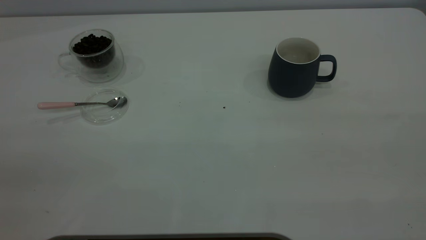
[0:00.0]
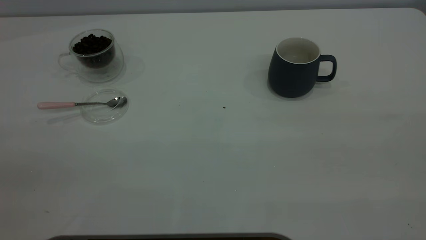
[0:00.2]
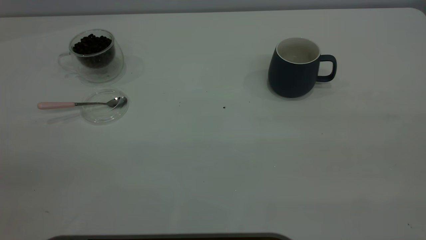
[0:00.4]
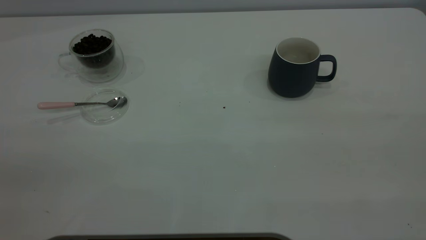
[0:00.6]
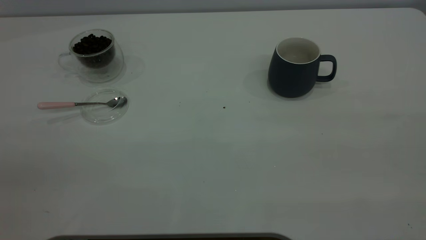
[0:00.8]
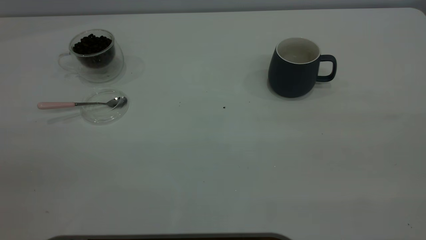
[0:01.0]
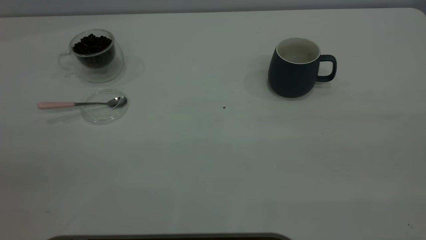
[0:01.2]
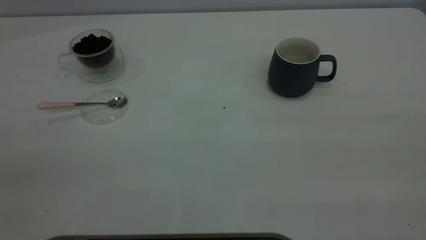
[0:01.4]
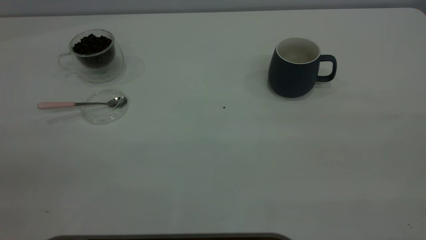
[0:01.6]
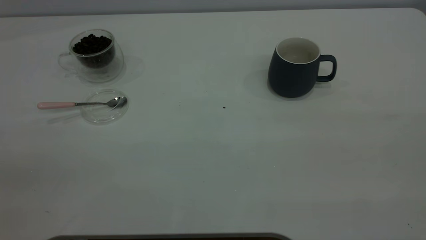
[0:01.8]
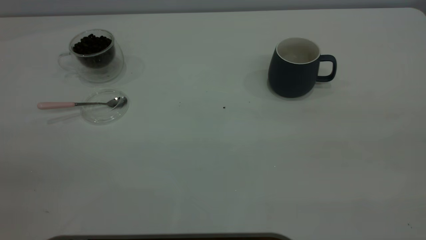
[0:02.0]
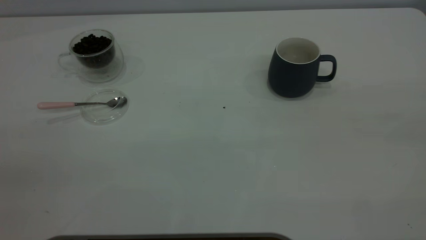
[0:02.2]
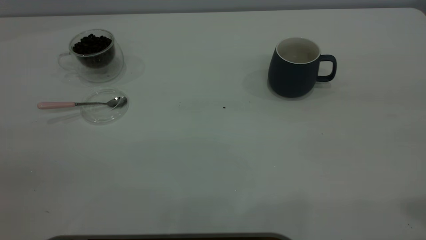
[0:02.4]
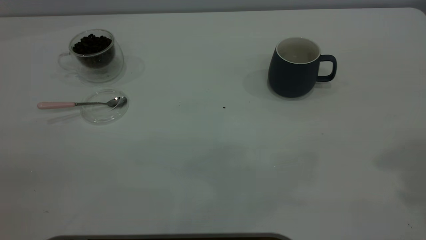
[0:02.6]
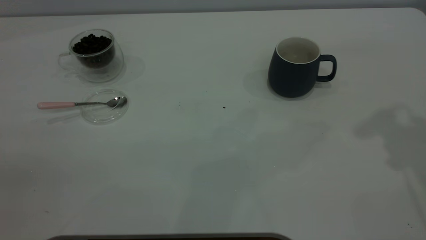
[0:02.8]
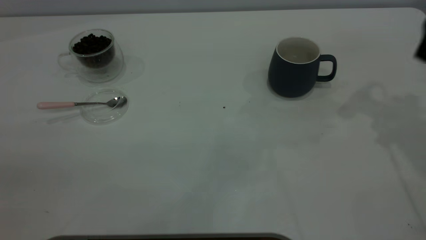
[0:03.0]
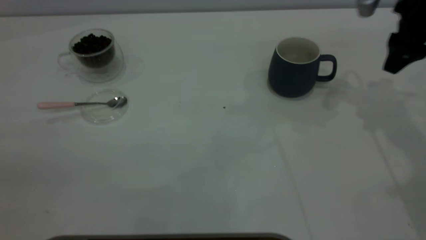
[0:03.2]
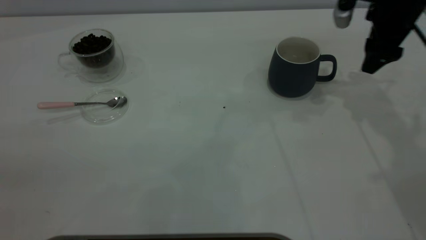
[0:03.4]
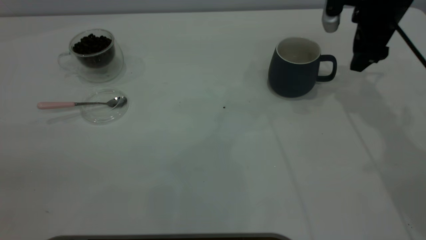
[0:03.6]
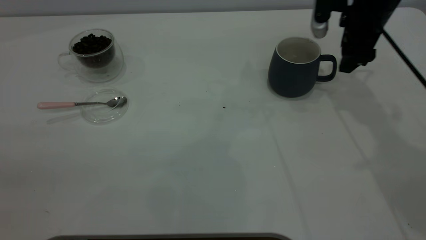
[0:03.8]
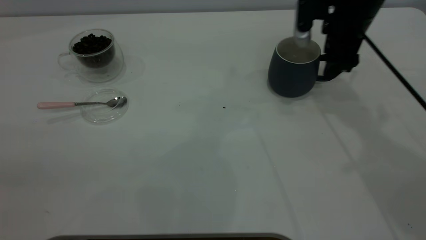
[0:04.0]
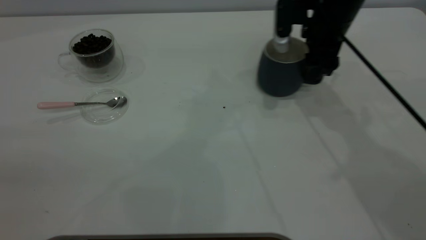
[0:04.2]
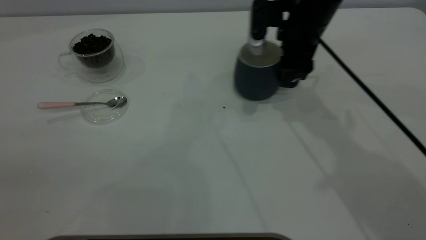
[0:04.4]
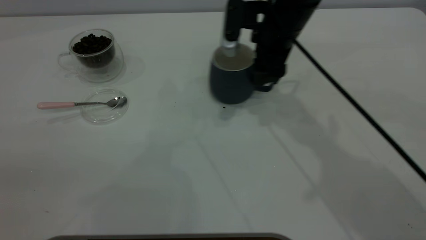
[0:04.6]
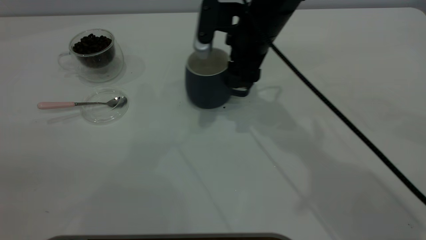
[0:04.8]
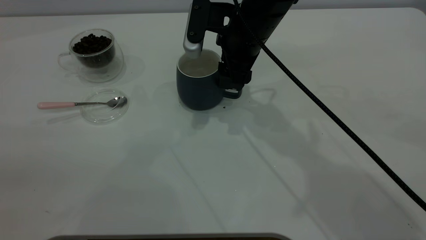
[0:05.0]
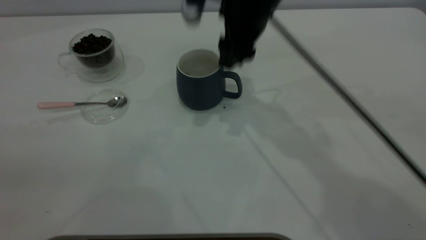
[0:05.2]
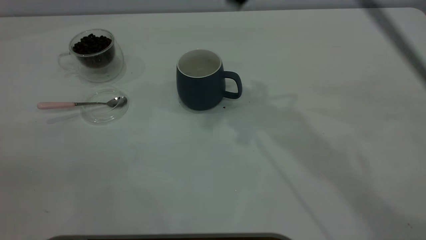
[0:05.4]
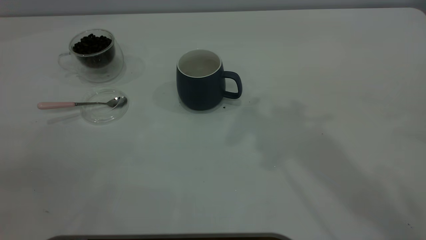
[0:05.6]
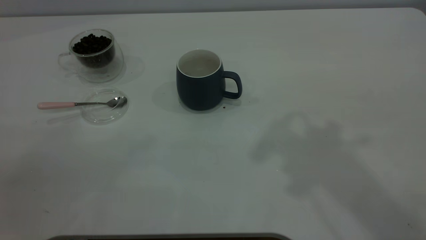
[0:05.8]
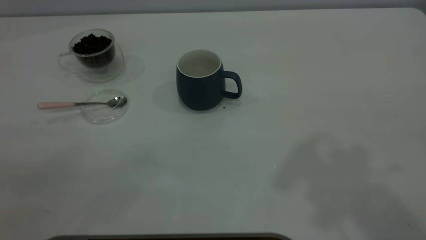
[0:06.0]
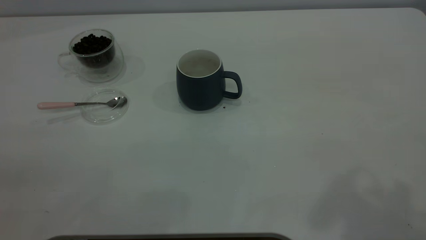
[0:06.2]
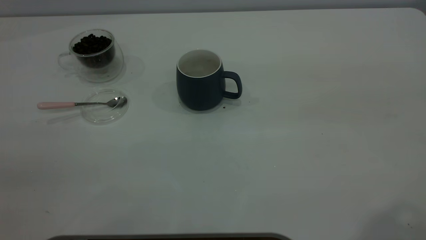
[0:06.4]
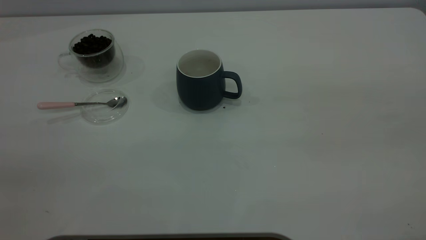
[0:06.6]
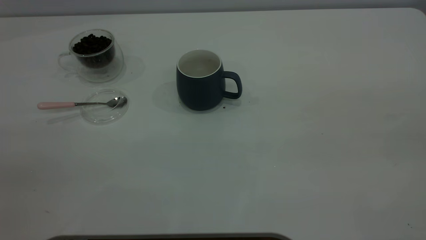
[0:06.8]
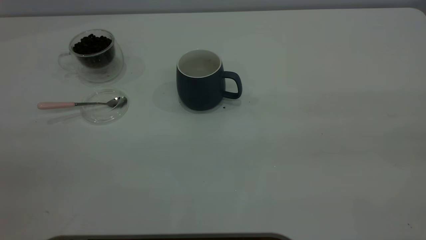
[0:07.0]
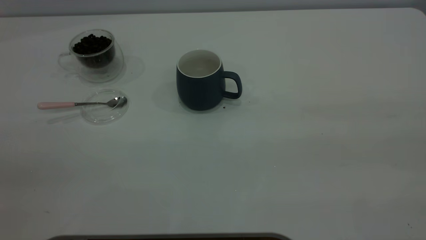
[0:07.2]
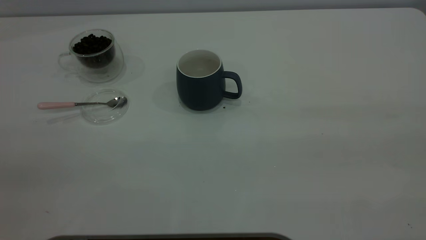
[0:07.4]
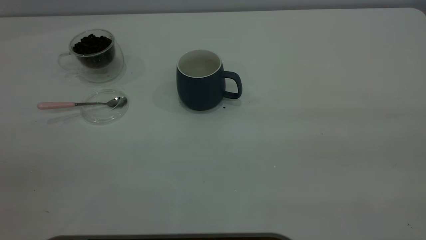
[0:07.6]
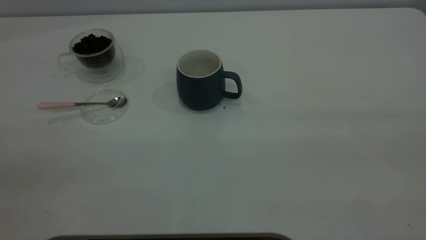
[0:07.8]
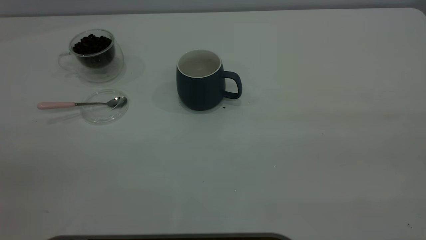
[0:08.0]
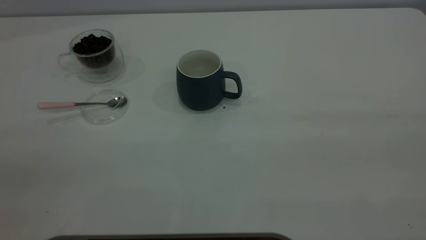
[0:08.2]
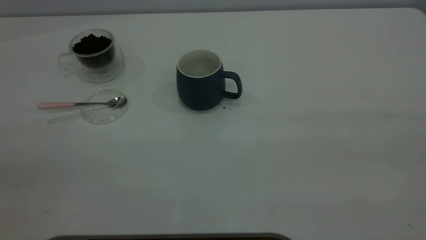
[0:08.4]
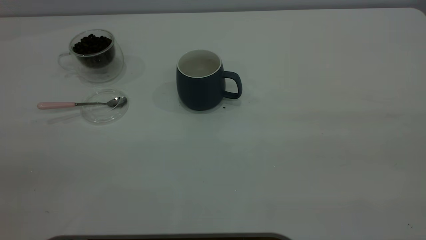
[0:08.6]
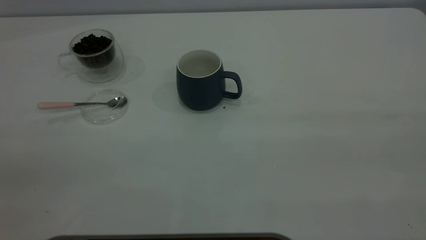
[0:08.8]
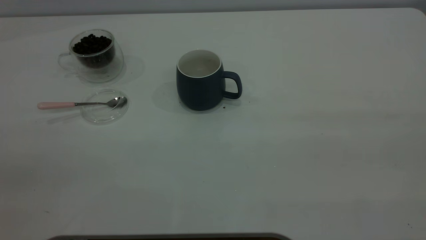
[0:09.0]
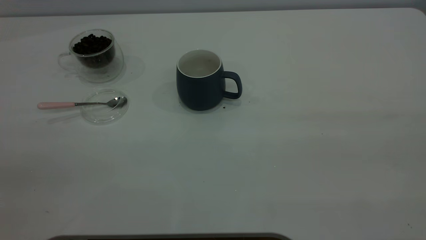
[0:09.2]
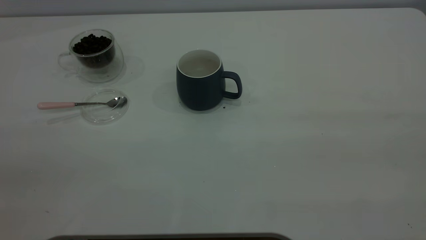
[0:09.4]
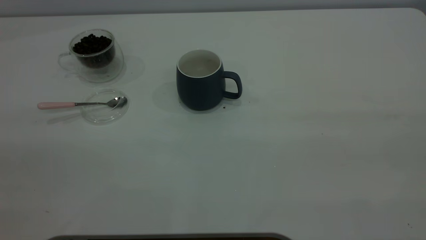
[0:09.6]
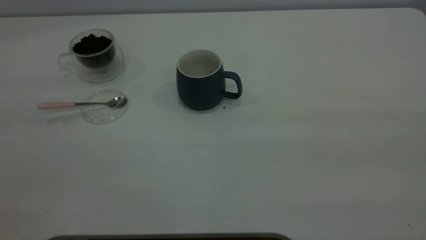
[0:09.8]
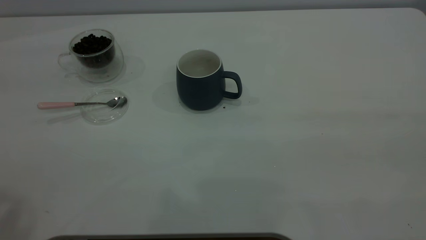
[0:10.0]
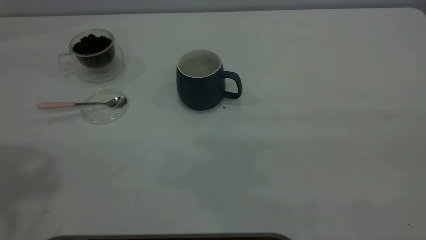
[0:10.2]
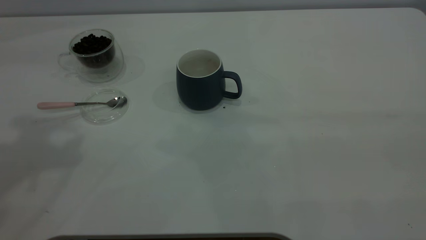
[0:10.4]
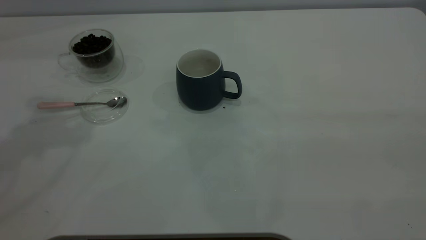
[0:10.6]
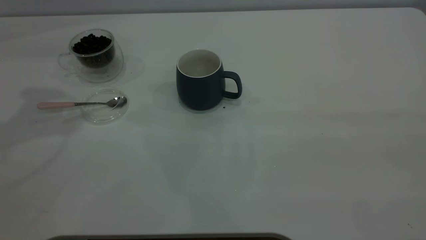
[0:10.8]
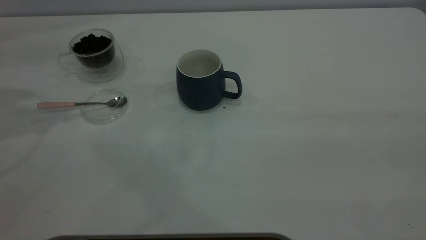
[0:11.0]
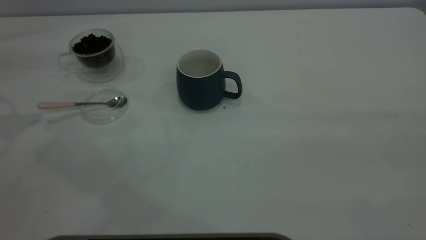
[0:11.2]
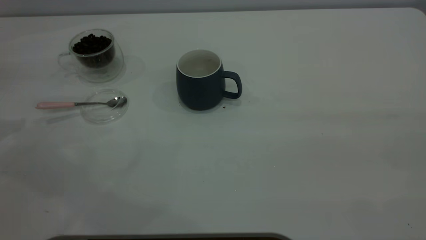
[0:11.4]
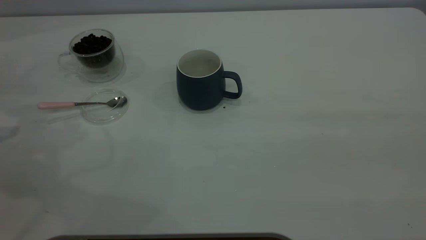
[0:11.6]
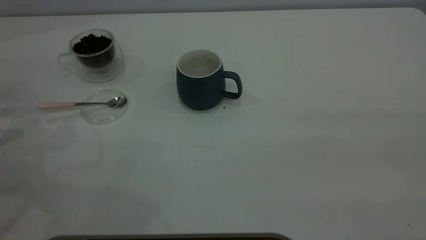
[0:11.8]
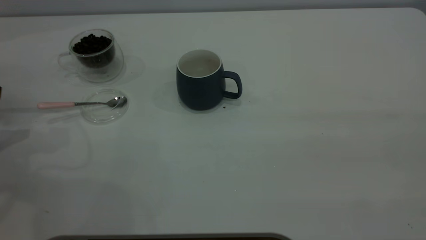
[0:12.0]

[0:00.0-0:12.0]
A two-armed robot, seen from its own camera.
Task of the whole recording: the right gripper place the grey cup in the center of the table, the left gripper take the pink spoon from the cup lid and scoop out the coffee beans from the coffee cup and put them into the grey cup, the left gripper put the spoon back into the cup lid.
Step, 0:00.0 to 0:05.2: Move the cup to the center of view.
0:00.0 to 0:01.6: Both grippers stay put.
0:03.0 to 0:04.4: The right gripper shifts roughly 20 cm to the left and downward.
0:04.4 to 0:06.0: The right gripper travels upward and backward by approximately 40 cm.
0:07.6 to 0:09.0: Neither gripper changes place.

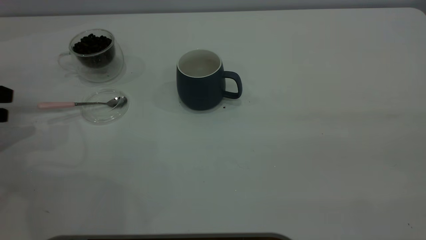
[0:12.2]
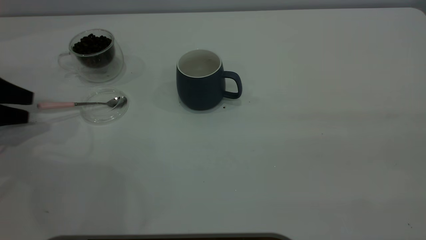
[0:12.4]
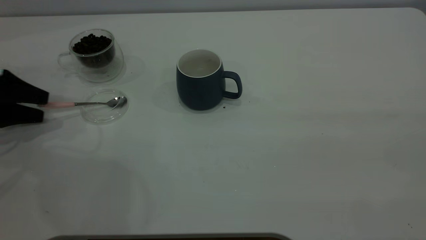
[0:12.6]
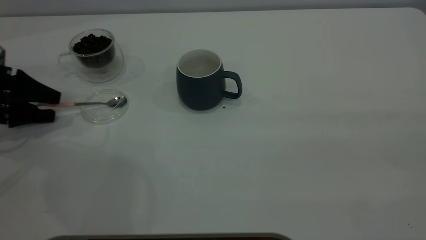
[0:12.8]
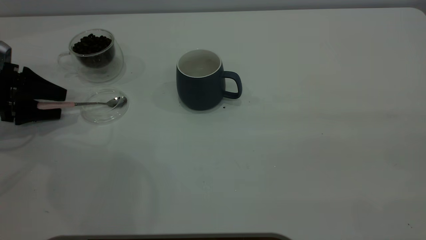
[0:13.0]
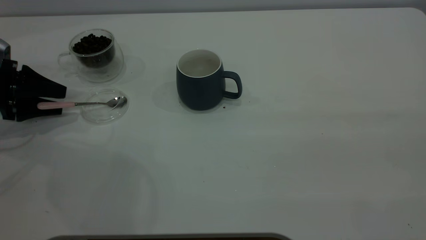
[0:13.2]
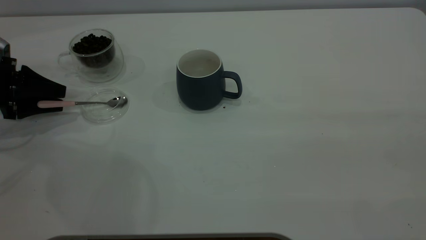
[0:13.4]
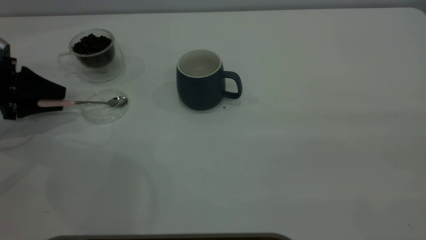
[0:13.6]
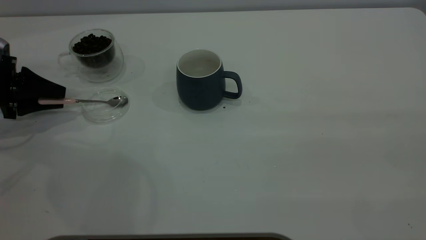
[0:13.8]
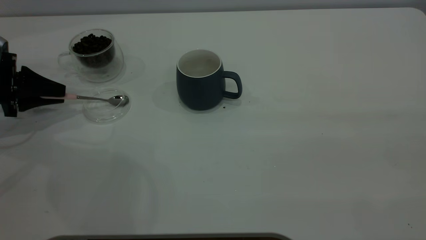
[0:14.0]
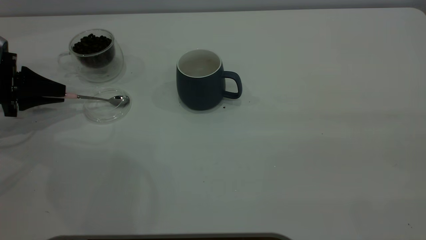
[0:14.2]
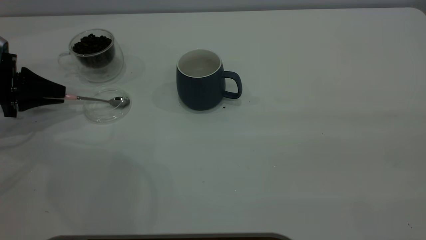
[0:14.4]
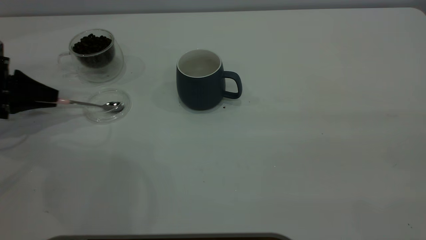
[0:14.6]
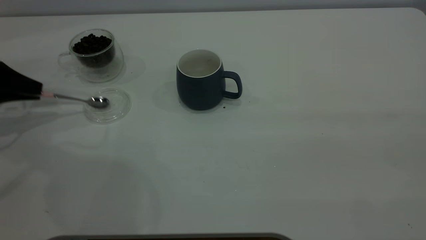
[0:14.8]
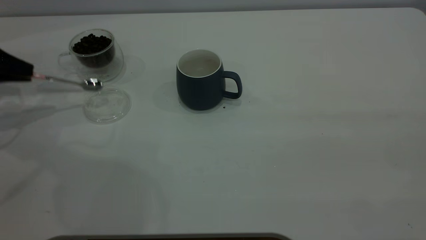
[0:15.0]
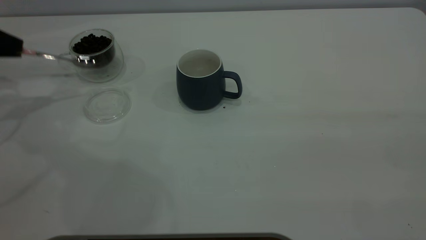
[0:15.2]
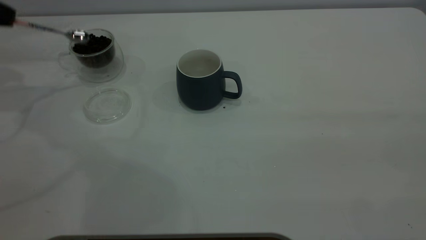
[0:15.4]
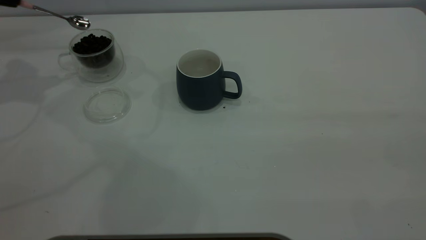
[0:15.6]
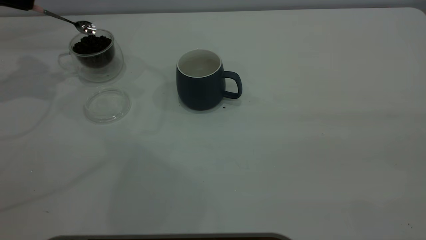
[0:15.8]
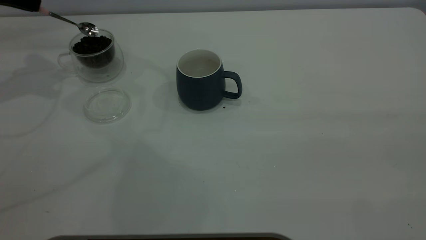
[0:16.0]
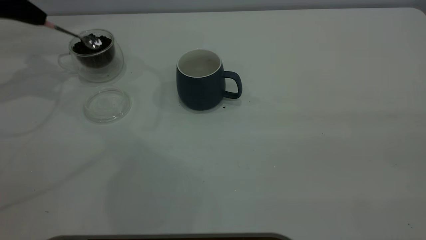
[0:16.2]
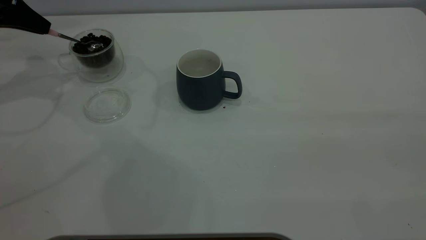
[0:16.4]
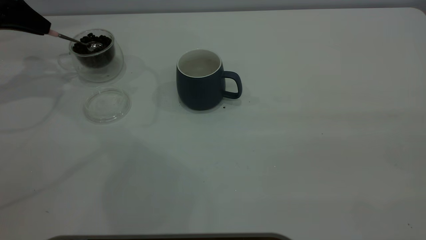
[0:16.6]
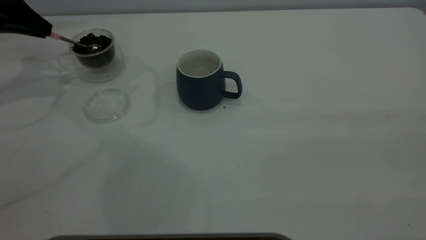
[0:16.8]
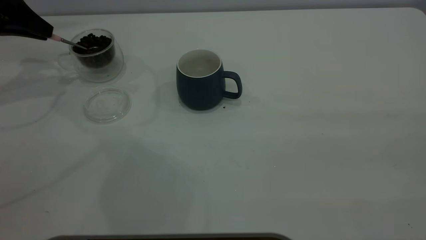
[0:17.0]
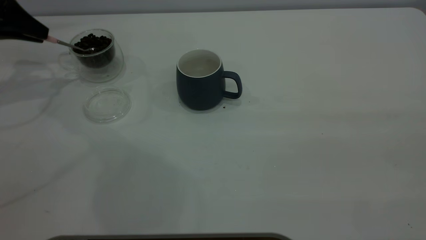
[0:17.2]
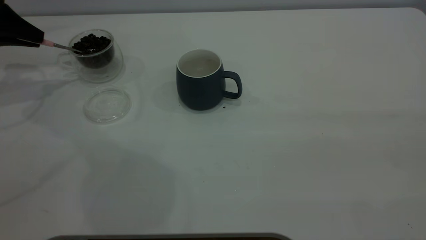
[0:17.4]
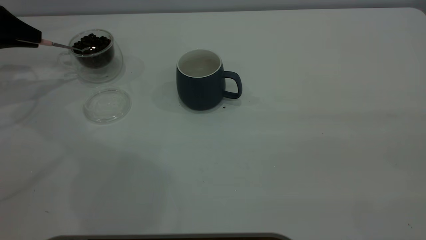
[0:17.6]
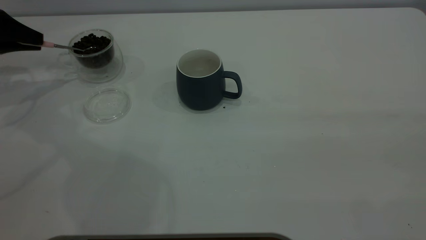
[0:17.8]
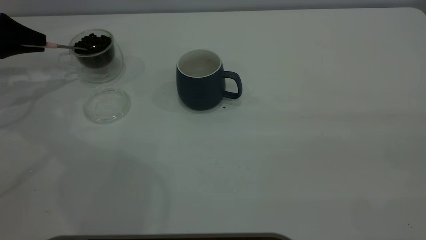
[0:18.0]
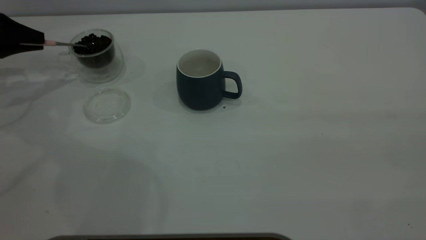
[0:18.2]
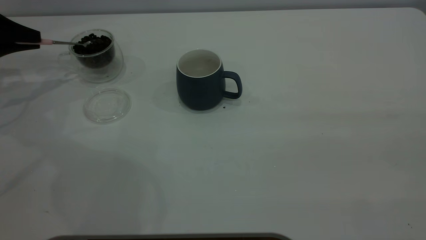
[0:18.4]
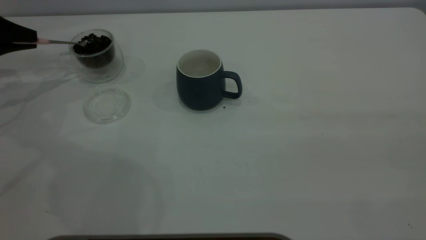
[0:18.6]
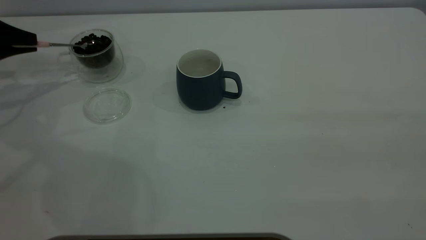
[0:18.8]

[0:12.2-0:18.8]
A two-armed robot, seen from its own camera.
Task of the whole recording: the right gripper place the grey cup in the center of the table, the left gripper take the pink spoon from the cup lid and scoop out the coffee beans from the coffee cup and put them into the grey cup, the left gripper put the spoon back into the cup lid.
Step, 0:12.2 to 0:14.8: Pick up the spoon.
0:12.2 to 0:13.8: The left gripper goes about 5 cm to the right, and closes.
0:13.8 to 0:15.4: The left gripper is displaced upward by some 15 cm.
0:15.4 to 0:17.2: The left gripper moves roughly 5 cm.
0:17.2 to 0:18.8: The left gripper heads downward, covering about 5 cm.
